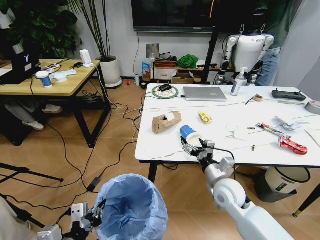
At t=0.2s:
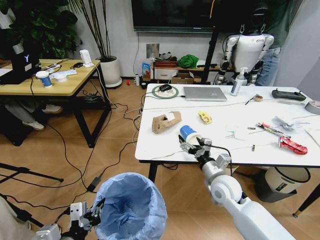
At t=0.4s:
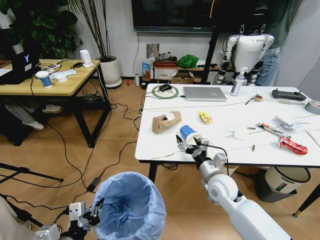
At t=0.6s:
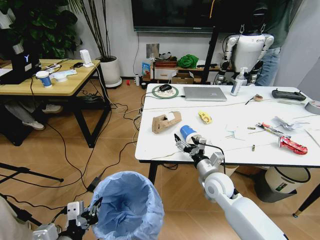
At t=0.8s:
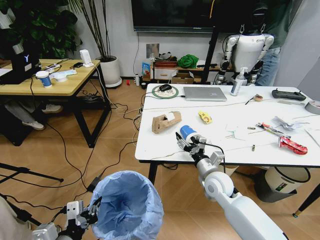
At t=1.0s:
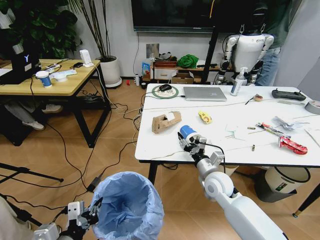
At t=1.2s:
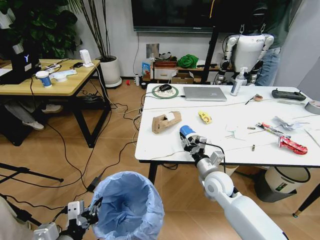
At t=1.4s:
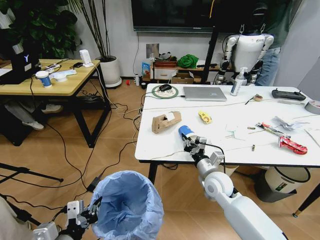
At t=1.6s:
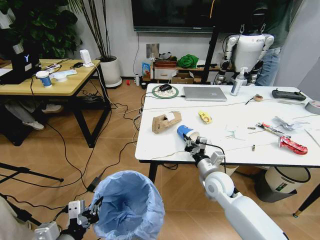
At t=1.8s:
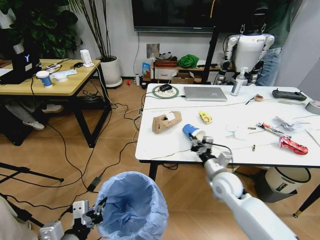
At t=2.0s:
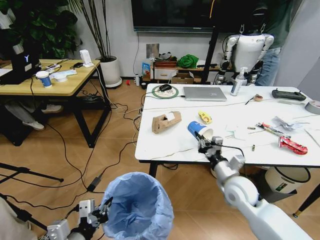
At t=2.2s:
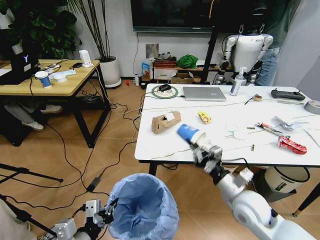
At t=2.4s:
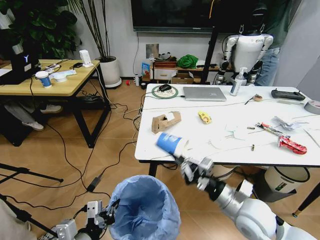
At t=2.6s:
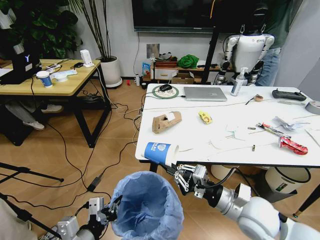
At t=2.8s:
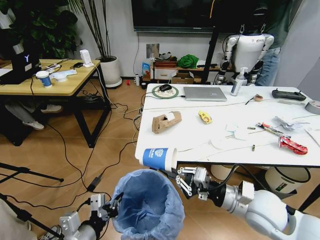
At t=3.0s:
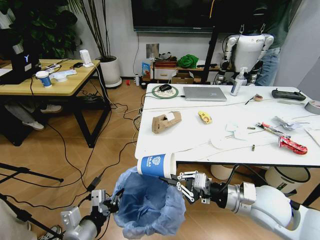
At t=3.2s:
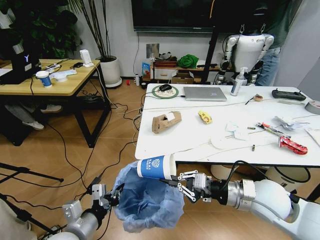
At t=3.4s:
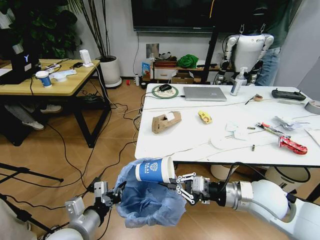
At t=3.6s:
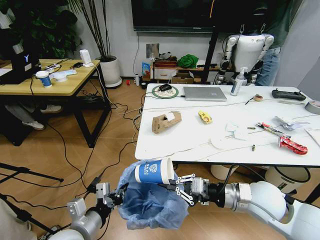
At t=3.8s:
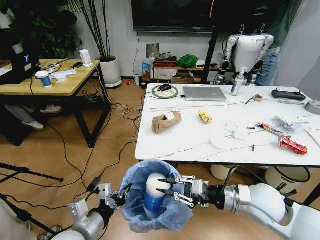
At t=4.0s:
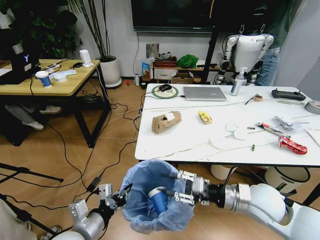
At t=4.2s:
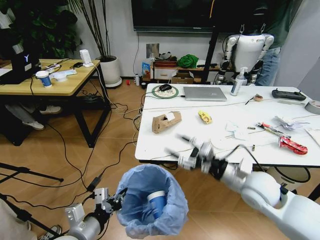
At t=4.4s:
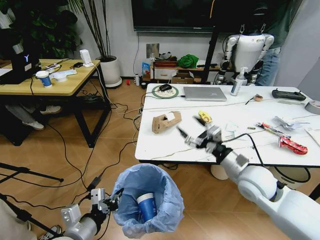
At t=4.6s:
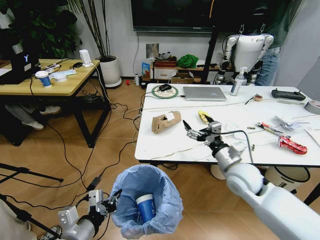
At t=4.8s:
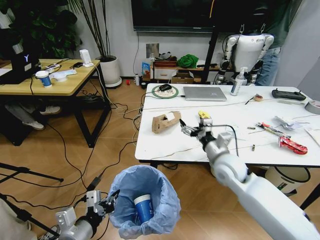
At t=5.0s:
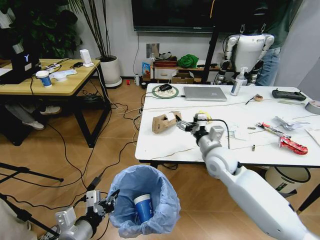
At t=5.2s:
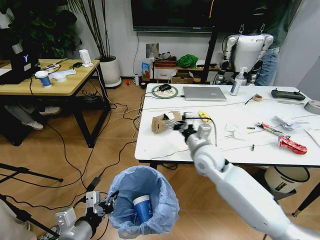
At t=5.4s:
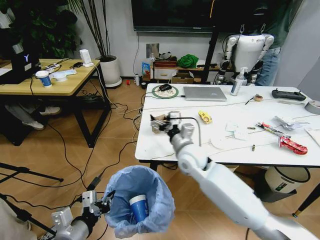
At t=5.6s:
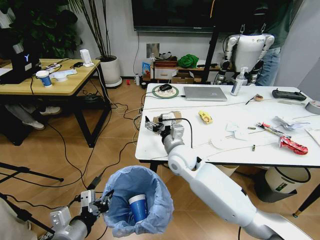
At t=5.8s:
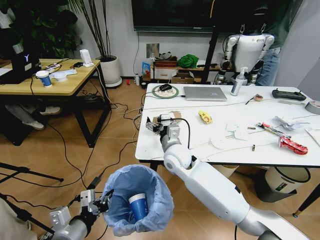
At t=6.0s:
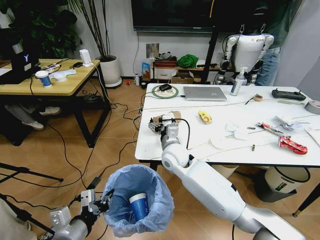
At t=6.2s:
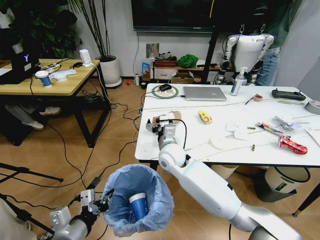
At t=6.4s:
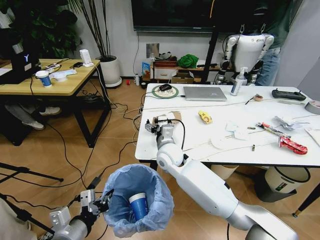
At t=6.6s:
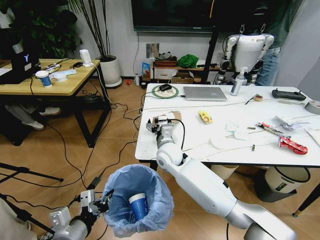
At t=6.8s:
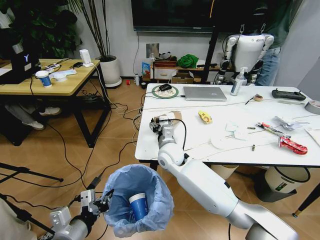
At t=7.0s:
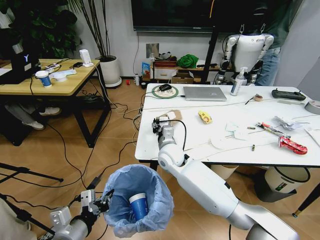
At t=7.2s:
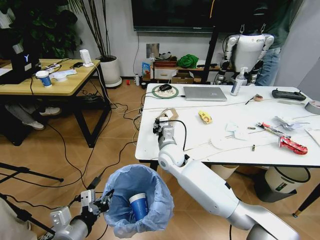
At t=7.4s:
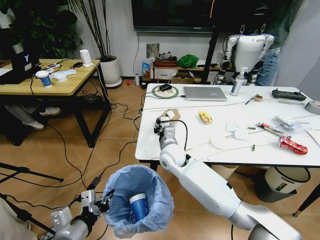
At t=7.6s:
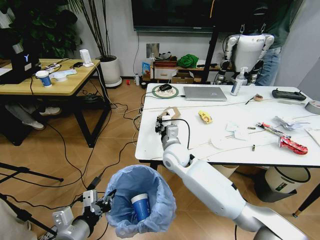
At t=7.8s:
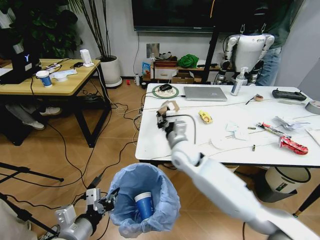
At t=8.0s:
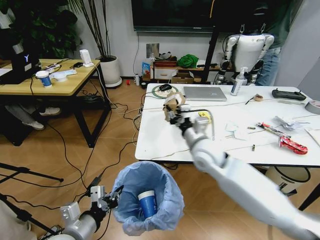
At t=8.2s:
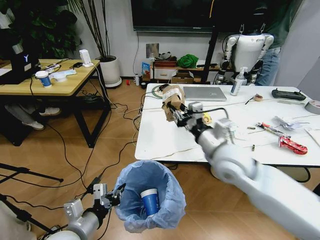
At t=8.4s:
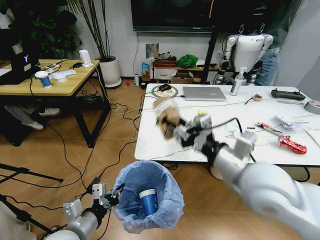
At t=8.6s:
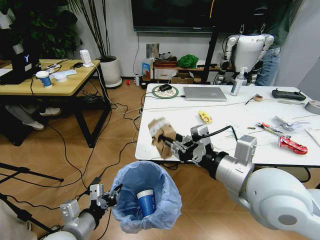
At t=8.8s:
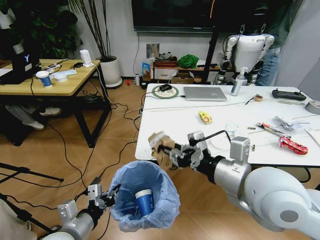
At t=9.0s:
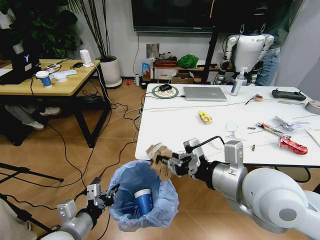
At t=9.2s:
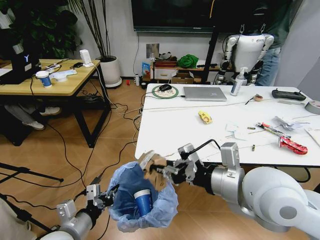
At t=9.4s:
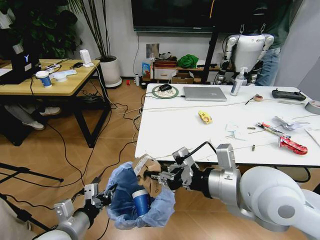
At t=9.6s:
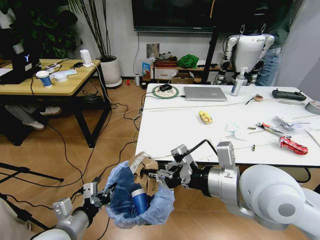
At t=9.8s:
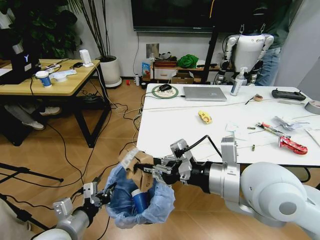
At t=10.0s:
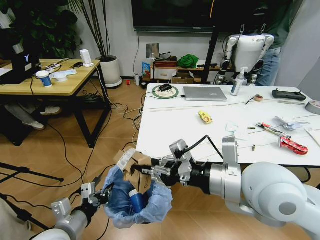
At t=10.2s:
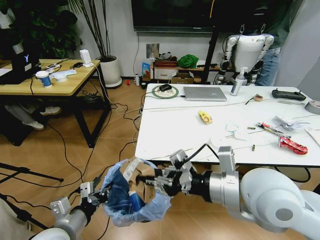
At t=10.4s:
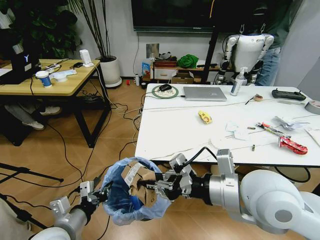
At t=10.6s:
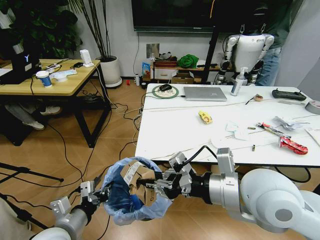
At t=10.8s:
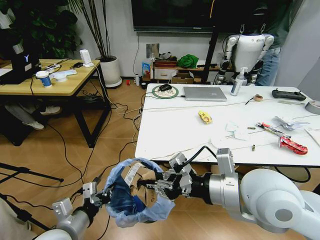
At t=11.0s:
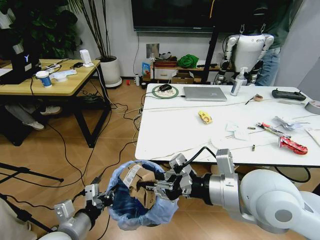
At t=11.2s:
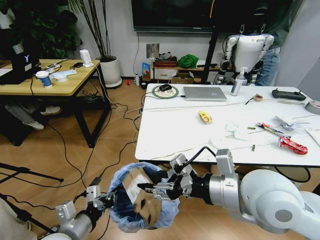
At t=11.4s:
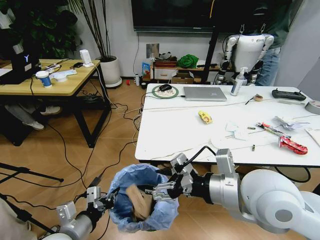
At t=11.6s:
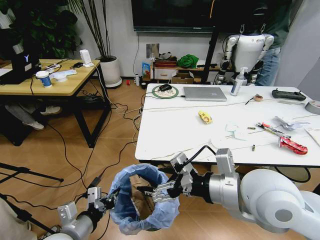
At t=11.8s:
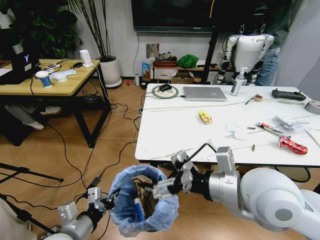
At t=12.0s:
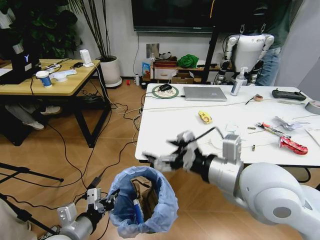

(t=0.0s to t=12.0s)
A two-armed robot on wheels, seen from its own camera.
Task of the whole recording: Pick up the trash bin and place the trash from the table into it.
t=0.0s - t=1.6s: The right gripper ends up roughly 5 cm from where it was, and closes.
t=1.6s - t=3.0s: The right gripper shifts about 15 cm upward, backward and to the right.
t=3.0s - t=4.4s: The right gripper travels forward by about 5 cm, and opens its fingers.
t=4.4s - t=6.0s: The right gripper is displaced to the left and forward by roughly 25 cm.
t=6.0s - t=7.6s: The right gripper closes its fingers.
t=7.6s - t=9.0s: The right gripper shifts approximately 30 cm backward, upward and to the right.
t=10.4s - t=12.0s: The right gripper opens its fingers.

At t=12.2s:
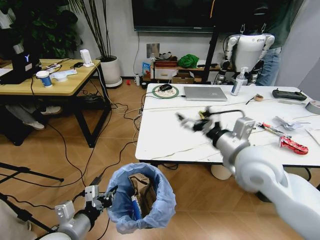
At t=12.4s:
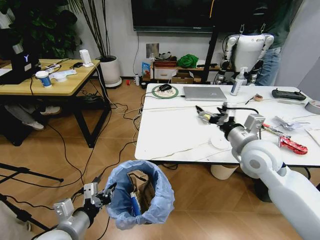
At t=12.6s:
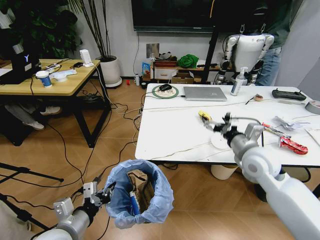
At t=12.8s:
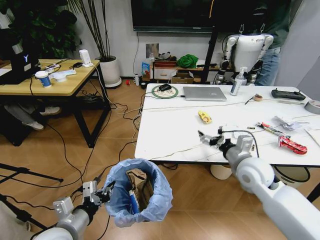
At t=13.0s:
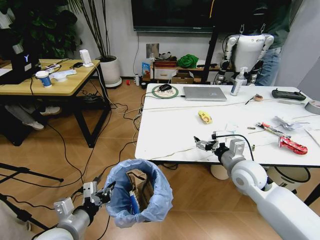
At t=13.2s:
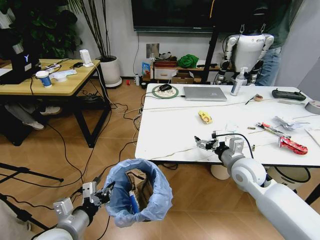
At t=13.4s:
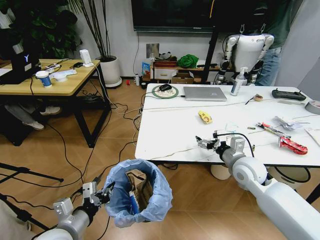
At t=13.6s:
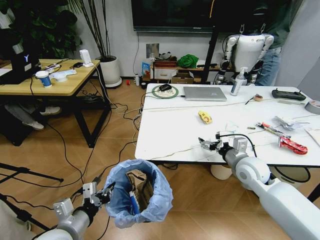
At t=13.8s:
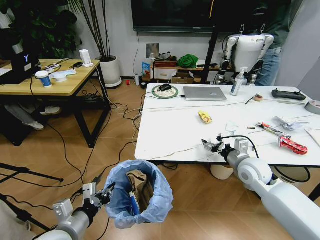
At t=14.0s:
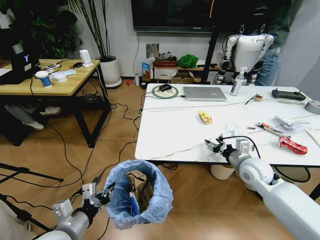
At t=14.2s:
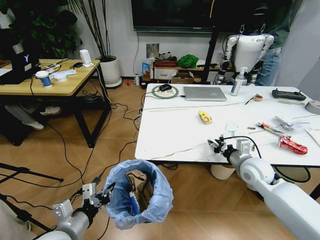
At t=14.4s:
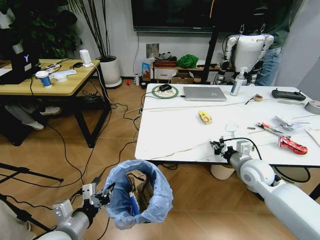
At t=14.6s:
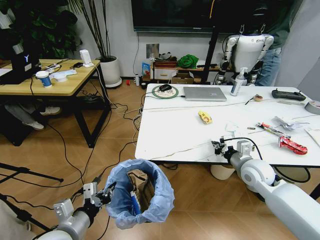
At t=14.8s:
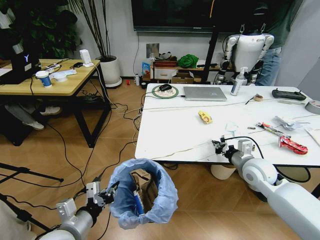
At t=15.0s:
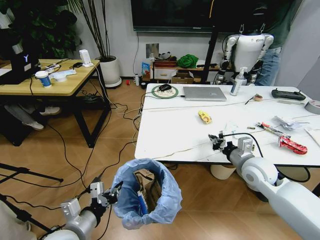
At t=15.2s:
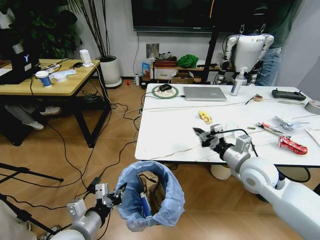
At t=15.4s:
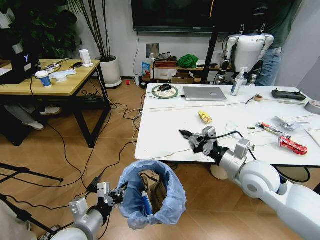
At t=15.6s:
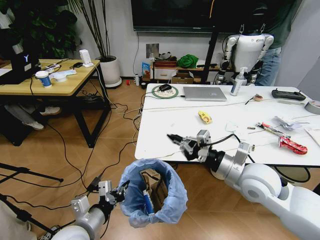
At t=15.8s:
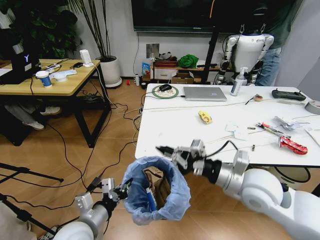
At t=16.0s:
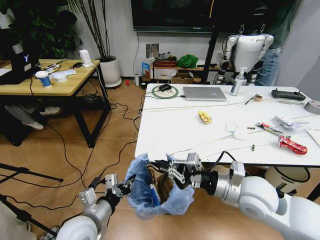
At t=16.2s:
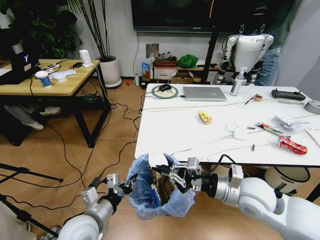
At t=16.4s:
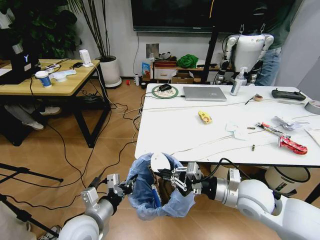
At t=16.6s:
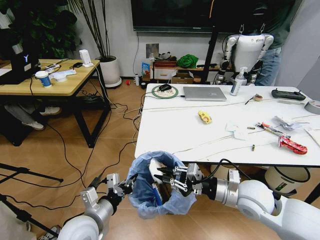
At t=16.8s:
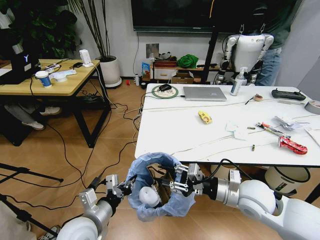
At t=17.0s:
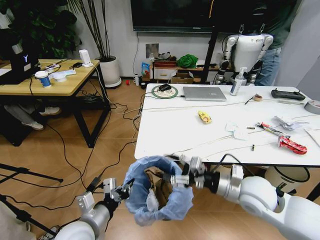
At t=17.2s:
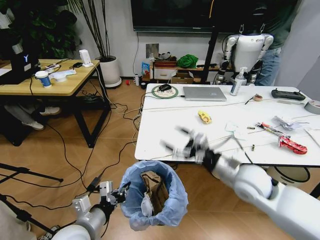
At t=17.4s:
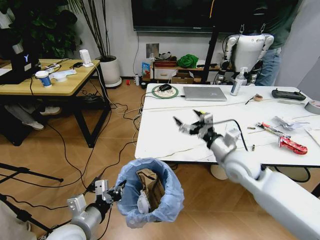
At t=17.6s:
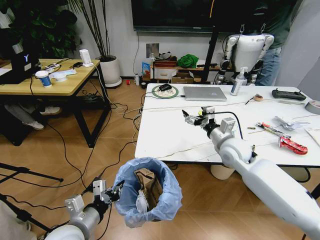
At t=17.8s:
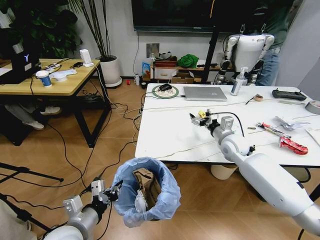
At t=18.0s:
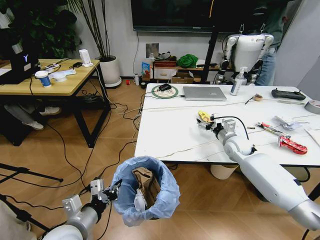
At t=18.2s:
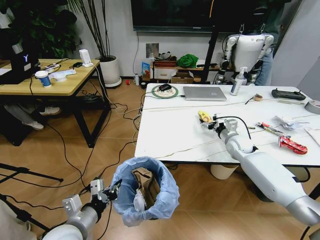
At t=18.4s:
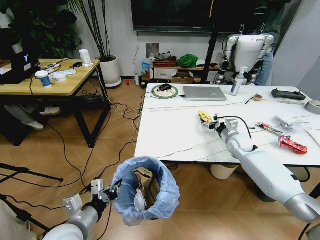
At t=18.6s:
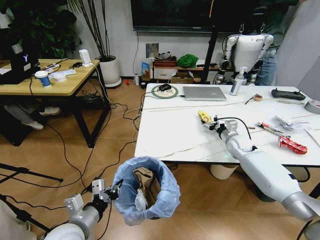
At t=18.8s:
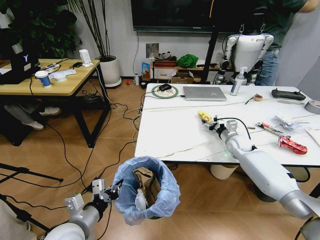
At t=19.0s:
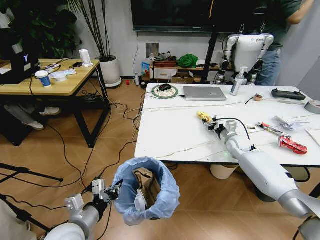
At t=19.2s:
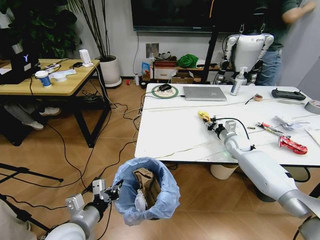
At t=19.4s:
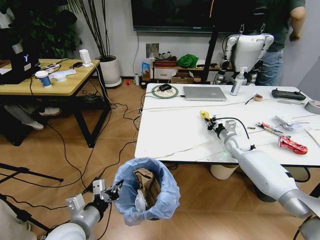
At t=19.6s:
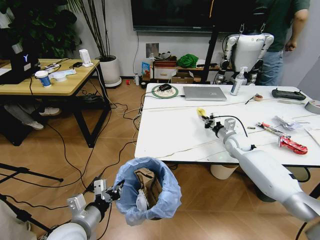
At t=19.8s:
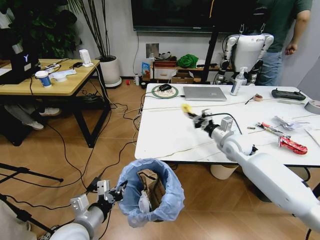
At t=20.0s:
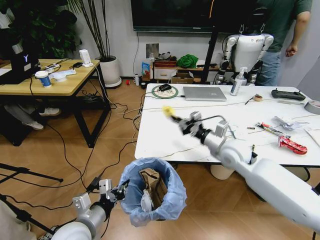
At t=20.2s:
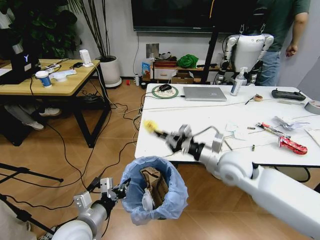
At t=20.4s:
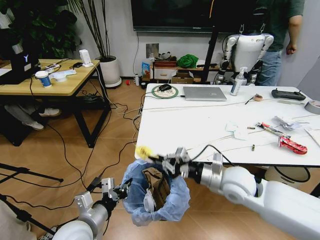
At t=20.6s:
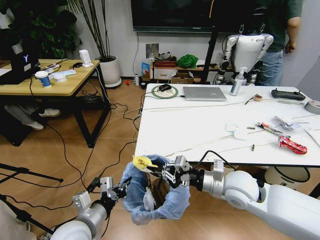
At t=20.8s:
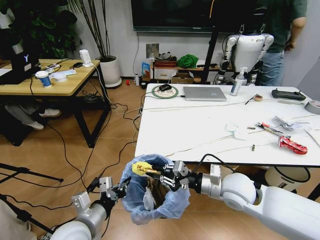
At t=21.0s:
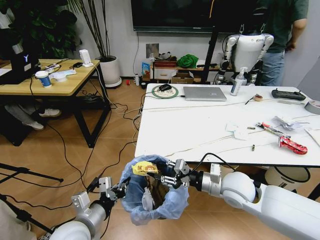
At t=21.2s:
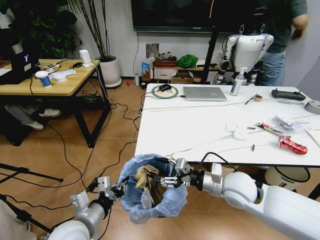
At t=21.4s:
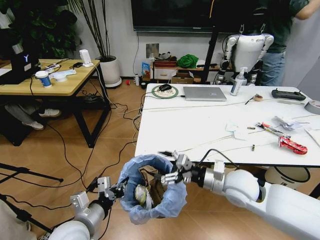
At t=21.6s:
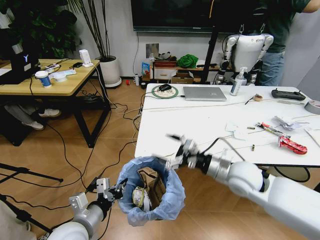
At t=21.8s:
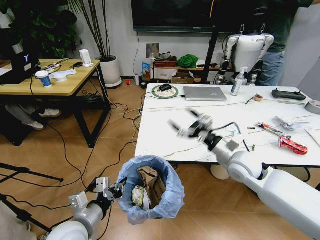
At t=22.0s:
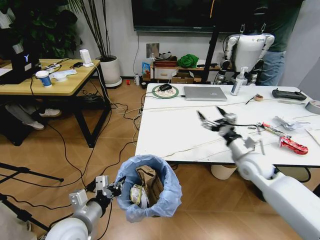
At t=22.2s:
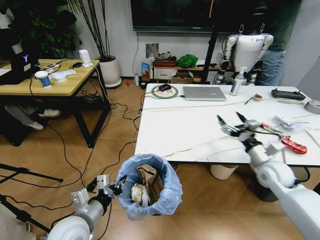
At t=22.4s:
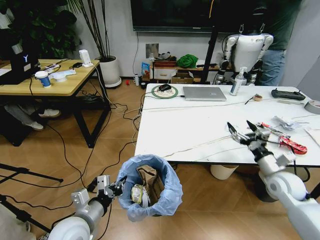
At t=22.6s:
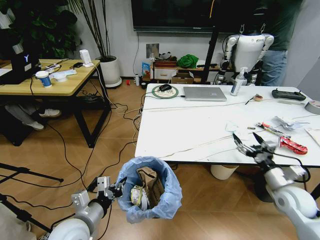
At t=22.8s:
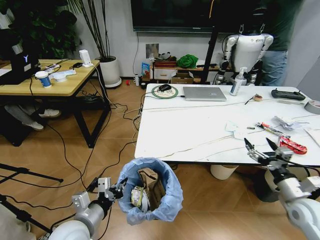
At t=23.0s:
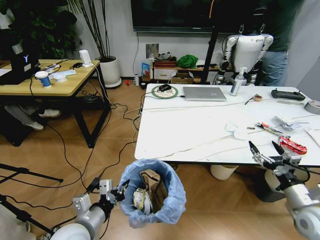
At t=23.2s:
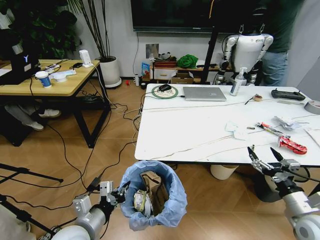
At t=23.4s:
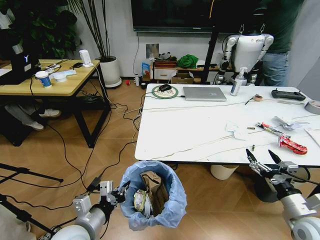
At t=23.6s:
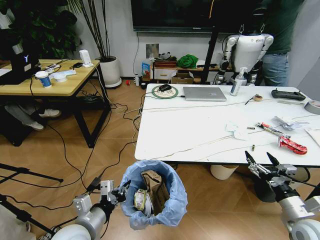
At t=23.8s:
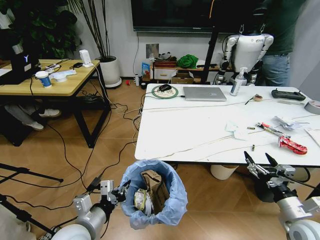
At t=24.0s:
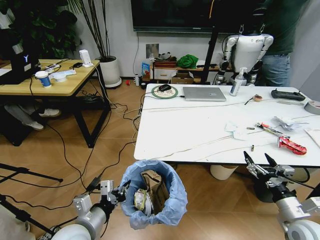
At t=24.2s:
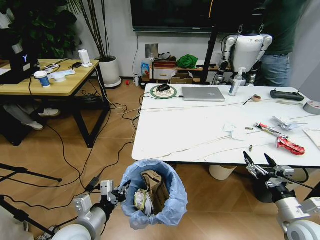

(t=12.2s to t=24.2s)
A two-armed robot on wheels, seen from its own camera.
Task of the whole recording: Pick up the trash bin and place the trash from the table into it.
t=12.2s - t=13.8s: The right gripper goes roughly 20 cm downward, to the right and forward.
t=13.8s - t=15.2s: The right gripper heads upward, covering roughly 5 cm, and closes.
t=15.2s - t=16.6s: The right gripper moves backward, some 5 cm.
t=16.6s - t=18.2s: The right gripper moves forward, about 25 cm, and opens its fingers.
t=18.2s - t=19.8s: The right gripper goes roughly 5 cm upward, and closes up.
t=19.8s - t=21.2s: The right gripper shifts approximately 15 cm backward, and opens up.
t=21.2s - t=22.6s: The right gripper heads to the right, covering about 20 cm, and opens up.
t=22.6s - t=24.2s: The right gripper travels backward by some 10 cm.
